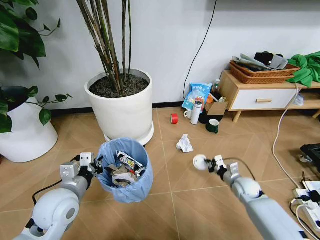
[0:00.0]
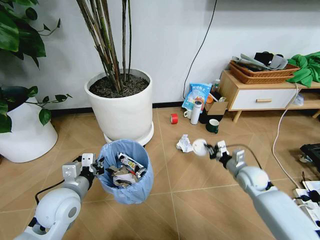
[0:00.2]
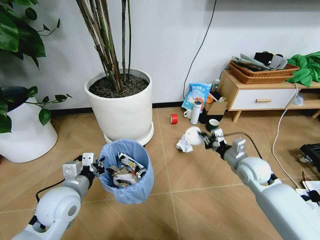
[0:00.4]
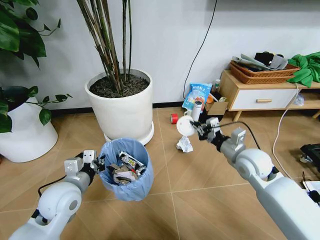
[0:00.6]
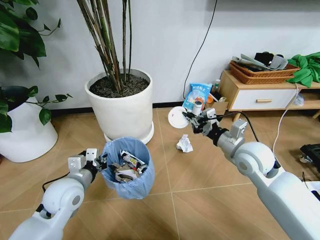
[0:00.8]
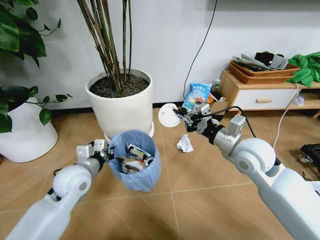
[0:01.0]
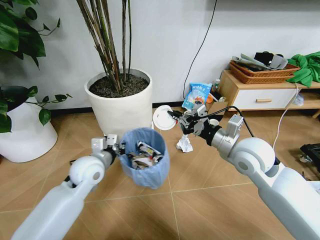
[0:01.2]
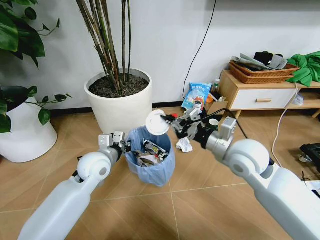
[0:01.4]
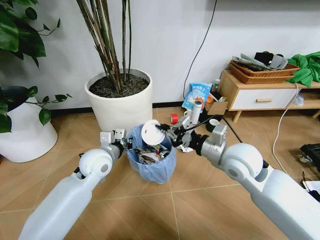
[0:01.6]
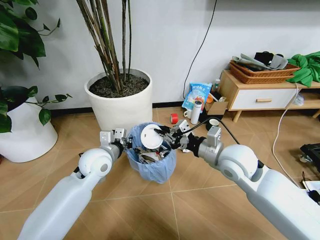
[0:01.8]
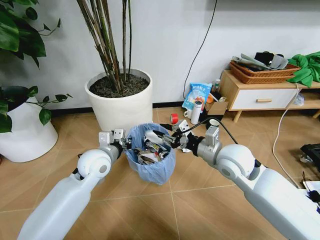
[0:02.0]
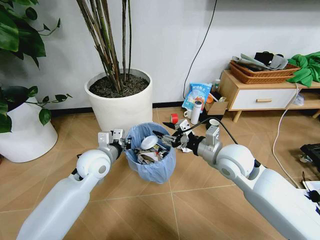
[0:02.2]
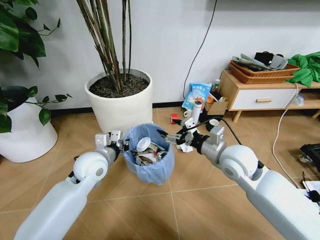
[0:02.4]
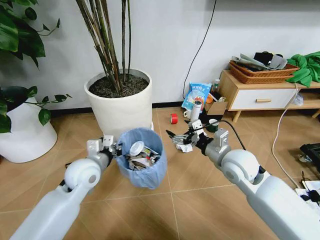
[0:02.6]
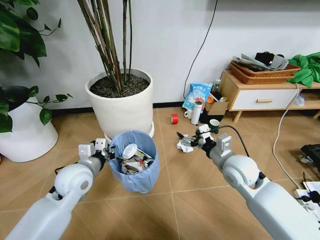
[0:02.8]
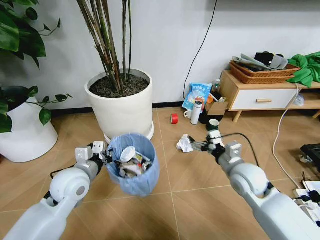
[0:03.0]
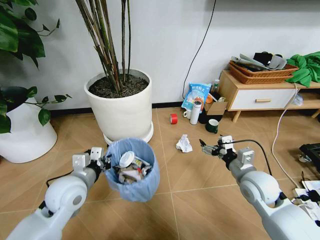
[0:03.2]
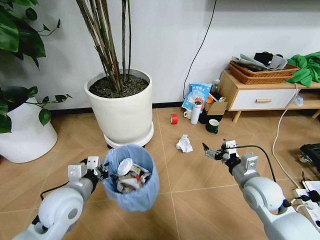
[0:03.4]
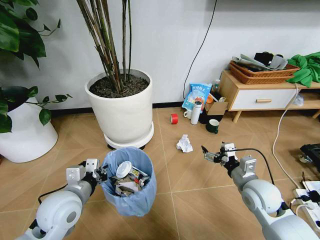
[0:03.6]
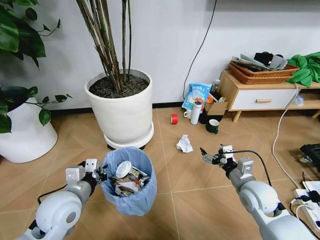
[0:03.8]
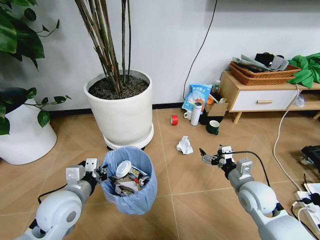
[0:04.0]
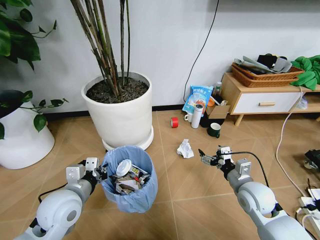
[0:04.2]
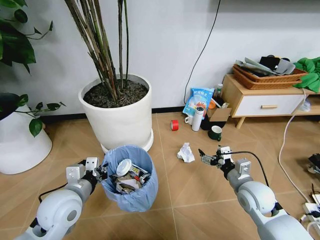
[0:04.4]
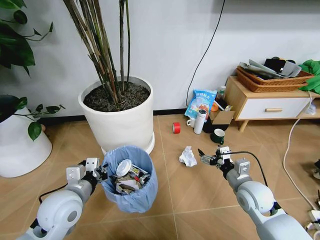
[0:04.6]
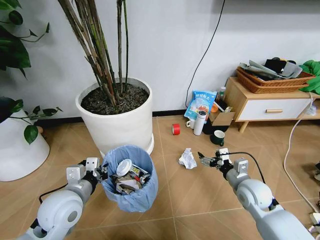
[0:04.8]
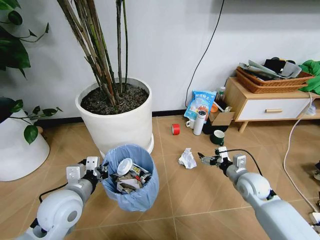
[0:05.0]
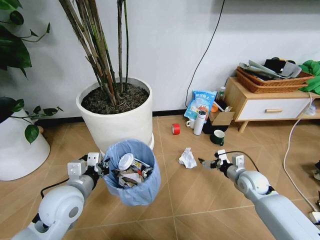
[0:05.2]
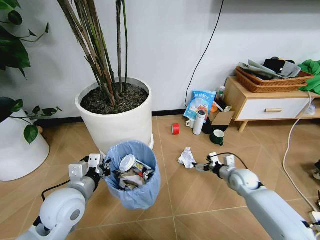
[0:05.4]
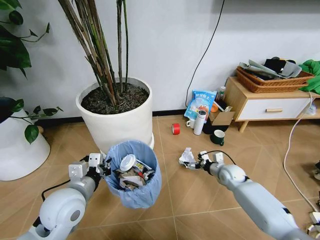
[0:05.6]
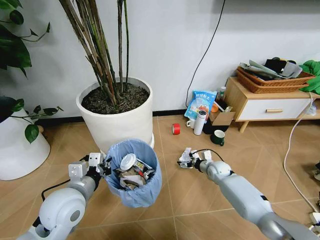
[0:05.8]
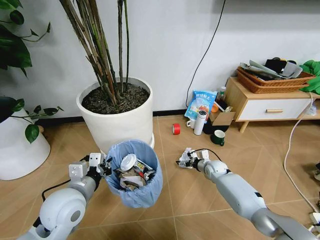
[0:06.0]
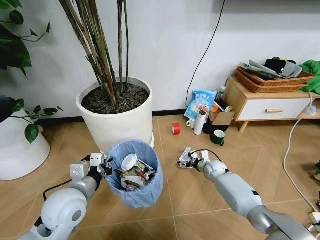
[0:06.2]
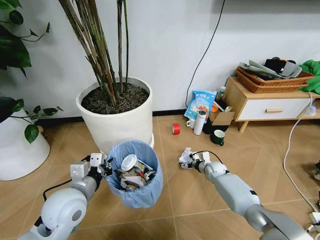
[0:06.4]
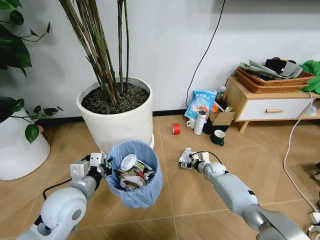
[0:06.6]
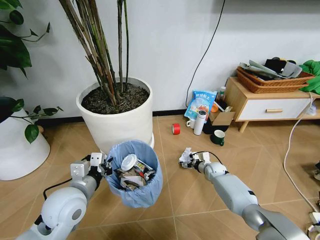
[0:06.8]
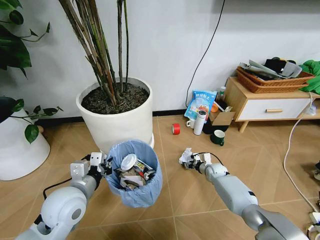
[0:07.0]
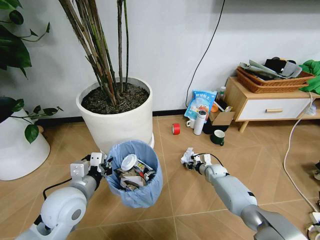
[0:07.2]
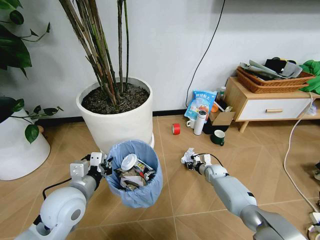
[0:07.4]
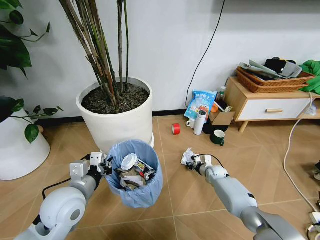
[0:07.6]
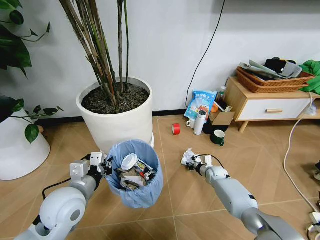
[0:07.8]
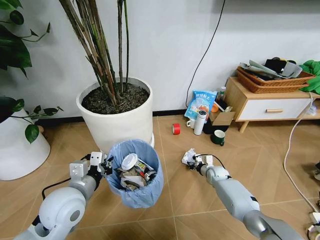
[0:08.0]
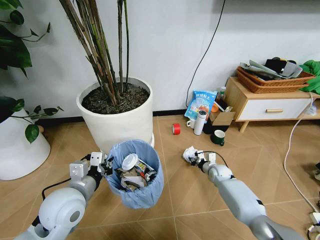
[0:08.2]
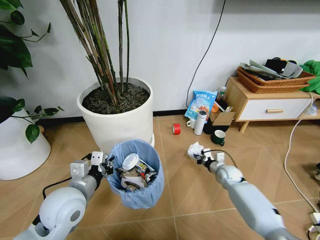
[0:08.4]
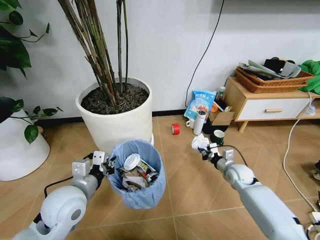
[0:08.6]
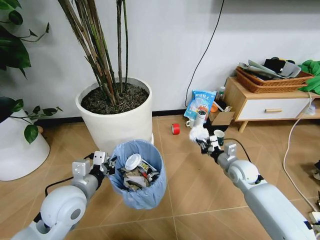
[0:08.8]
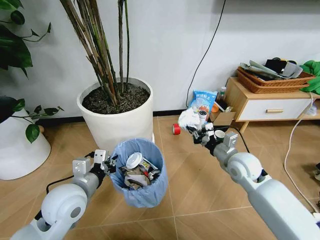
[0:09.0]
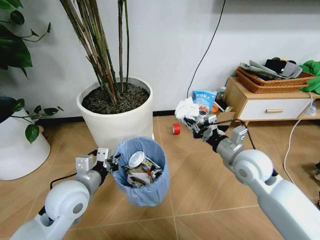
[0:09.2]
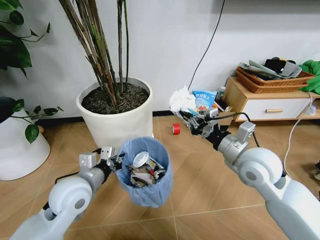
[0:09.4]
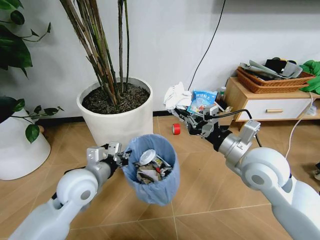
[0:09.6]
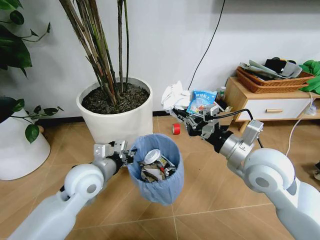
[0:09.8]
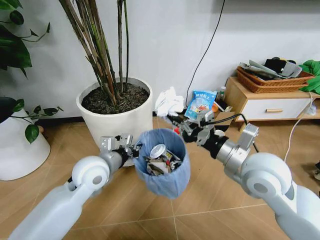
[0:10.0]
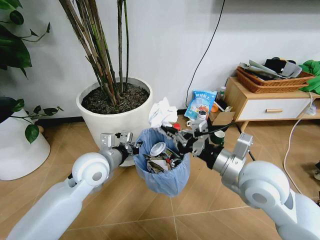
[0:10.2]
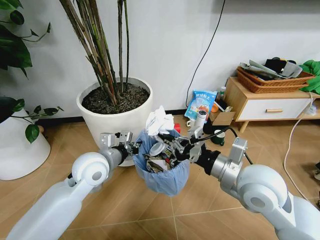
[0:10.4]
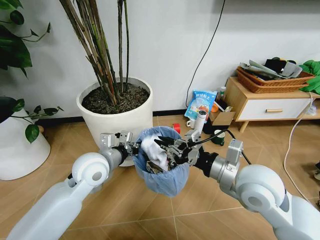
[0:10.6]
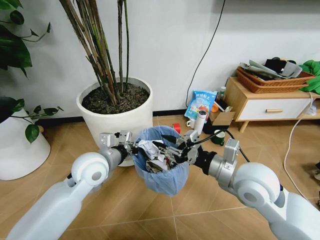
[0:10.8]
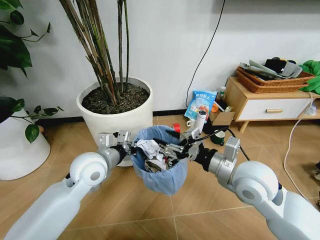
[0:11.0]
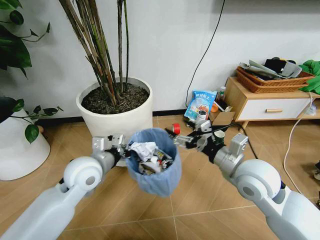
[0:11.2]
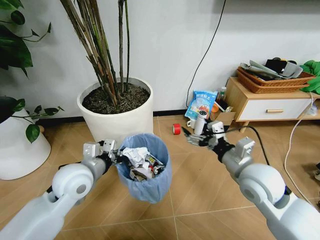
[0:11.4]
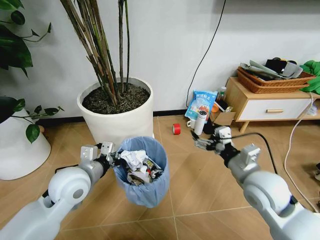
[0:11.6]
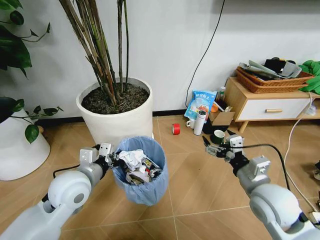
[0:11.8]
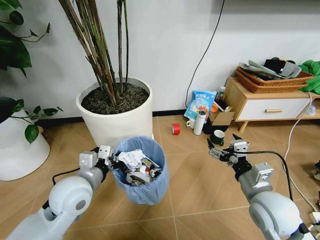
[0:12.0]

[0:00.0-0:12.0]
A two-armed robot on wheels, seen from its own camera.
Task of the whole recording: Pick up the trash bin and place the garbage on the floor into it.
0:00.0 to 0:01.6: The left gripper is displaced forward and to the right by about 15 cm. Meanwhile the right gripper moves upward and to the left, some 30 cm.
0:01.6 to 0:03.0: The right gripper shifts approximately 10 cm downward and to the right, and opens its fingers. The left gripper moves backward and to the left, approximately 10 cm.
0:03.0 to 0:04.4: The left gripper moves backward, approximately 5 cm, while the right gripper changes place by approximately 5 cm.
0:04.4 to 0:06.0: The right gripper heads forward and downward, covering about 25 cm.
0:06.0 to 0:07.6: The right gripper shifts by about 5 cm, and closes its fingers.
0:07.6 to 0:09.0: The right gripper goes approximately 25 cm upward and backward.
0:09.0 to 0:10.4: The left gripper heads forward, covering some 10 cm, while the right gripper heads upward, backward and to the left, covering roughly 20 cm.
0:10.4 to 0:12.0: The left gripper travels backward by some 5 cm. The right gripper heads downward and to the right, covering some 10 cm, and opens its fingers.

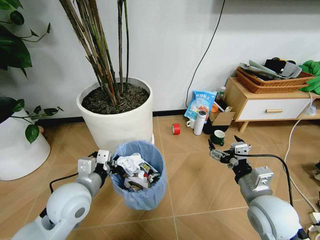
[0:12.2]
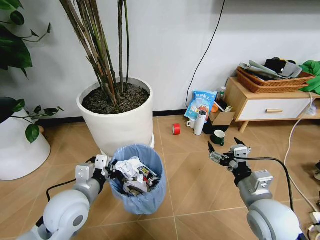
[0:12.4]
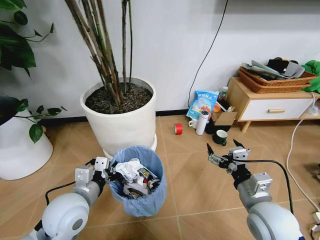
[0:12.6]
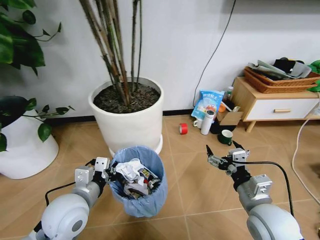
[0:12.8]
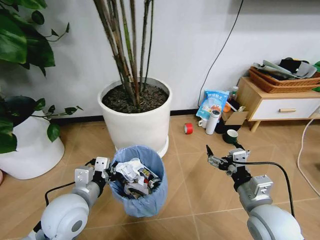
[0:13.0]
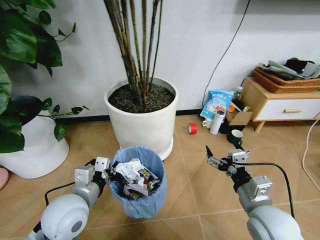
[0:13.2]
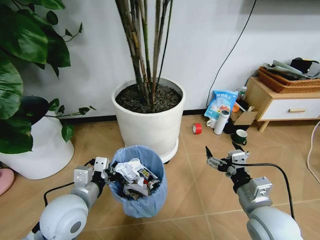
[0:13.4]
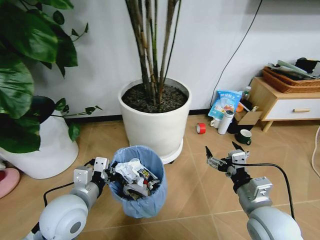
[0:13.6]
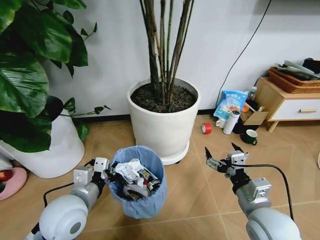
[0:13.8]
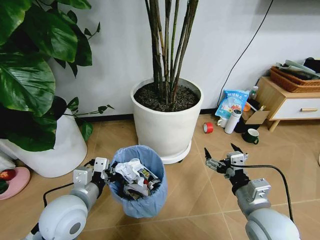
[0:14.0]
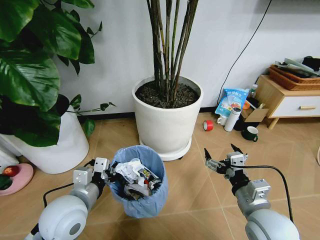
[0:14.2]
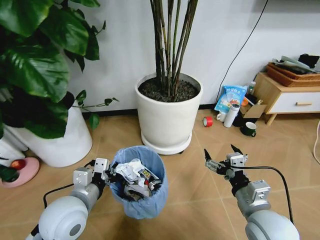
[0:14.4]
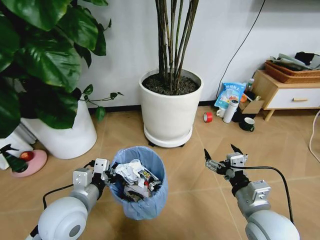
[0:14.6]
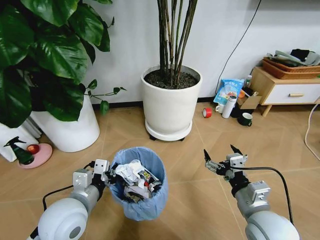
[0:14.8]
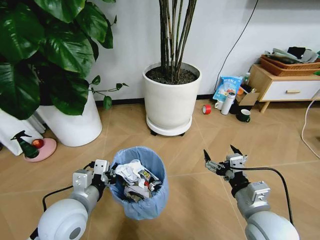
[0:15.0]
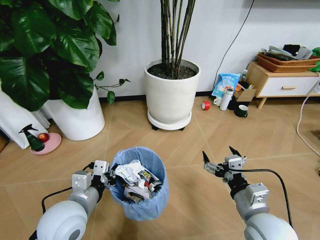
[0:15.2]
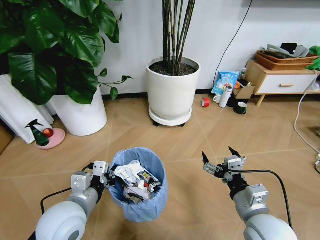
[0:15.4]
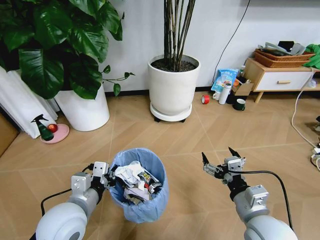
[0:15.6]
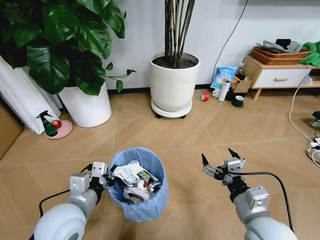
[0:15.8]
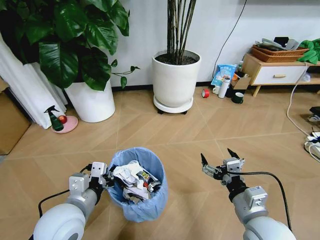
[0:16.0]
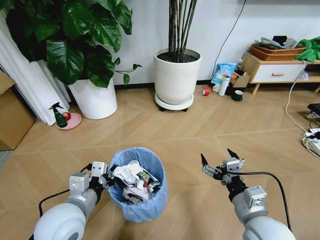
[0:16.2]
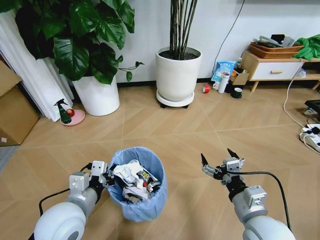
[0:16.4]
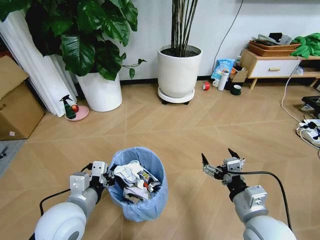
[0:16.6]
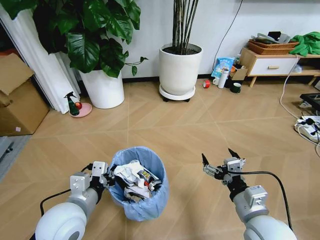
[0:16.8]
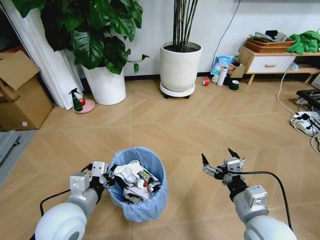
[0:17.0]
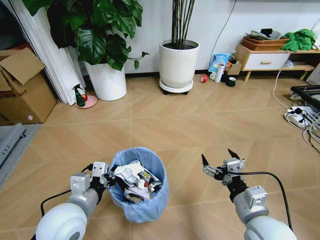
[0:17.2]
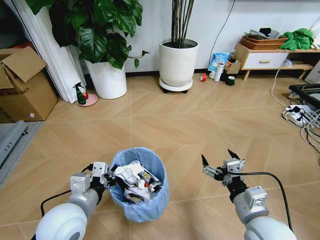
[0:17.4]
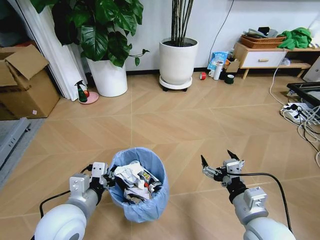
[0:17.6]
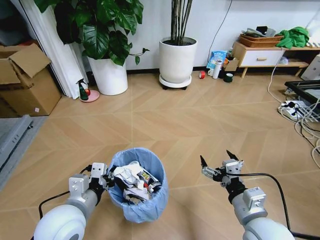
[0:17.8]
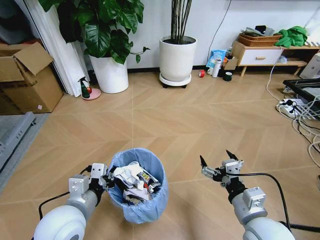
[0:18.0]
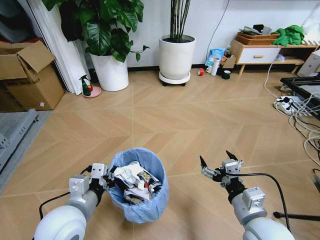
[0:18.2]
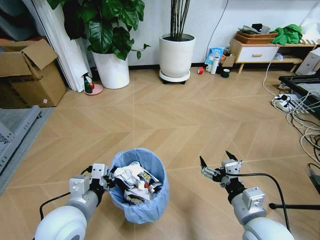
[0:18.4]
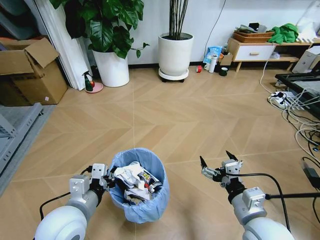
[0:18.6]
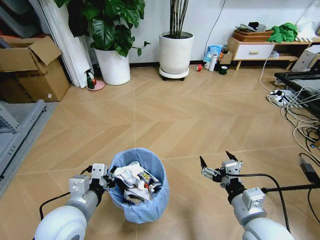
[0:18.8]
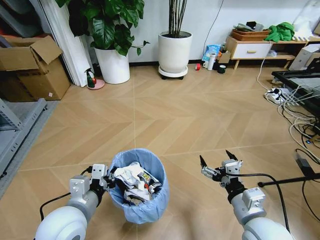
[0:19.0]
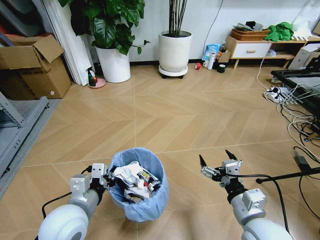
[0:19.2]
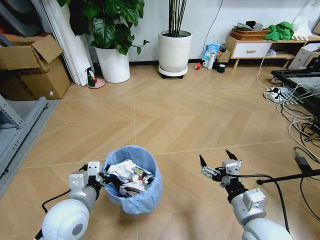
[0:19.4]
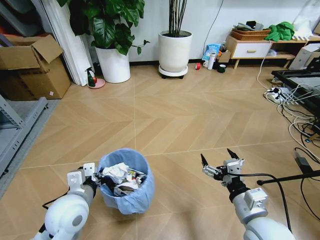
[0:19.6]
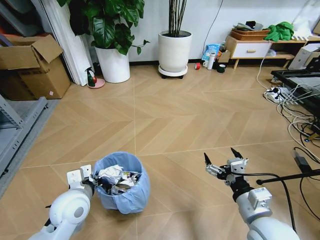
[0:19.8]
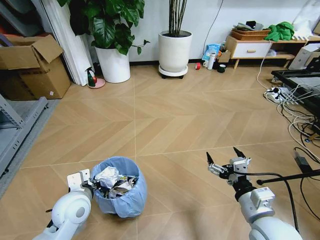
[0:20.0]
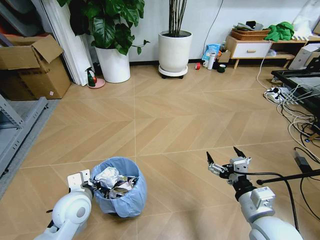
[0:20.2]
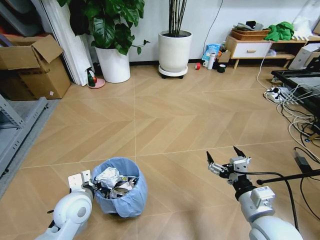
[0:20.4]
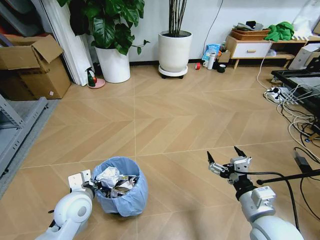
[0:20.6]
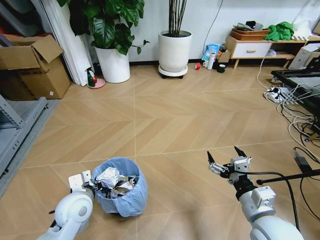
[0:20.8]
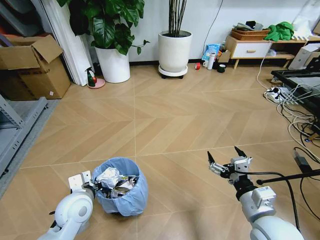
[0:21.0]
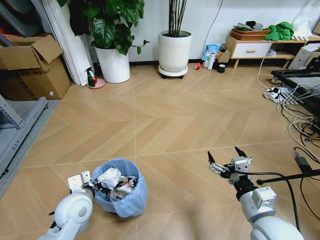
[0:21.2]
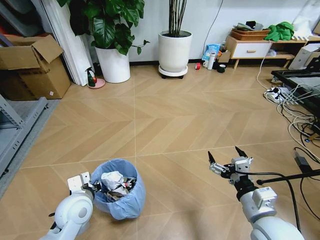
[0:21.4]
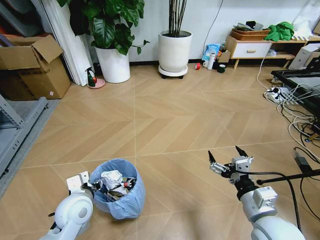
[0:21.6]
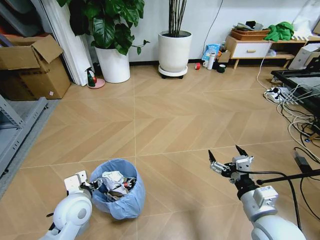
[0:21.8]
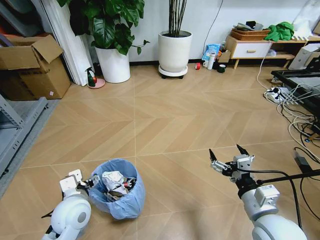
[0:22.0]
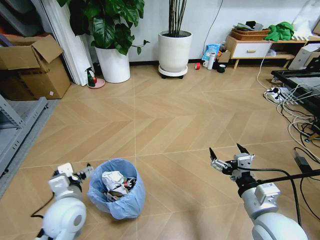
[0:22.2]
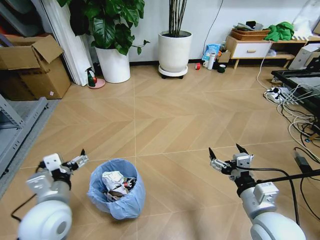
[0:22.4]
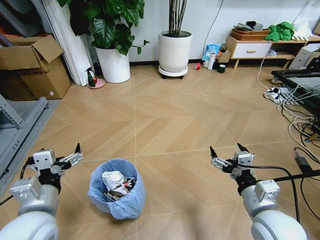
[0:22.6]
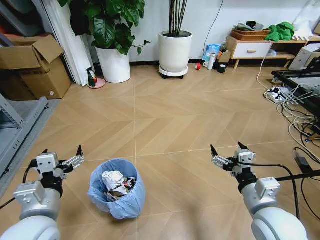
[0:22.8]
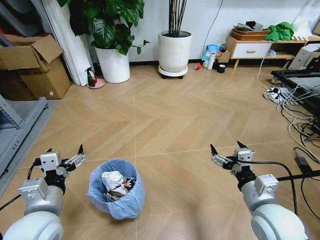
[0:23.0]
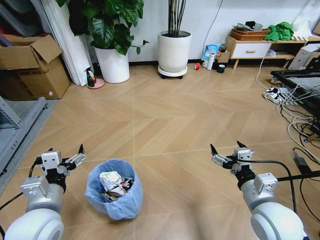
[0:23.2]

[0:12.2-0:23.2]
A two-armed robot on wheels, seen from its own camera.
Task of the whole recording: Pick up the trash bin and place the garbage on the floor into it.
0:18.4 to 0:20.0: The left gripper heads downward and forward, covering approximately 10 cm.
0:20.0 to 0:21.6: The left gripper opens its fingers.
0:21.6 to 0:23.2: The left gripper moves upward and backward, roughly 10 cm, and opens up.
